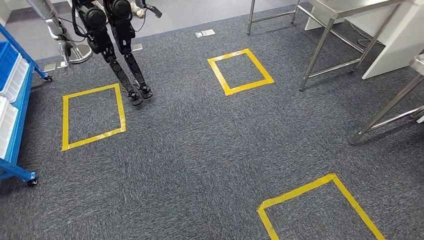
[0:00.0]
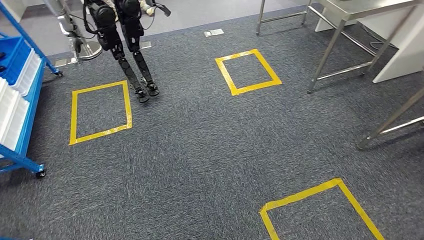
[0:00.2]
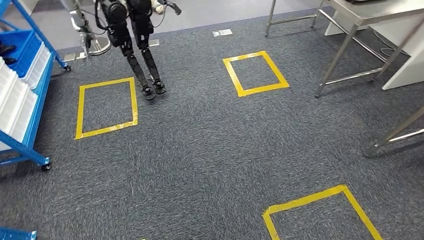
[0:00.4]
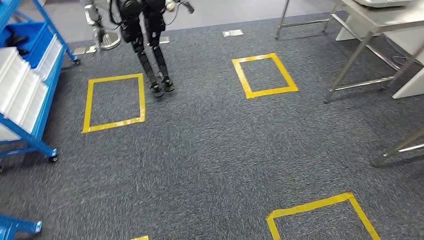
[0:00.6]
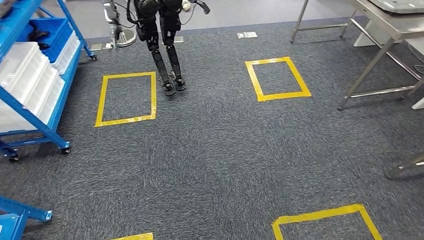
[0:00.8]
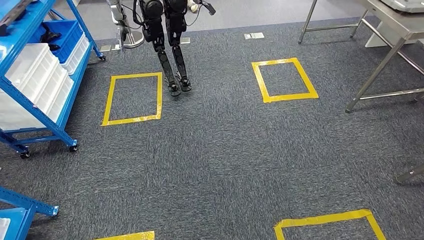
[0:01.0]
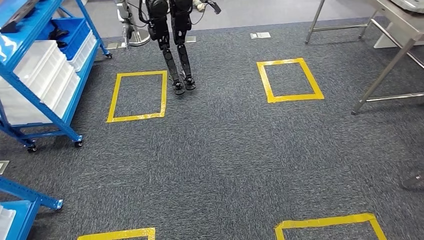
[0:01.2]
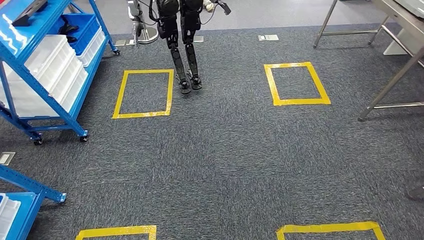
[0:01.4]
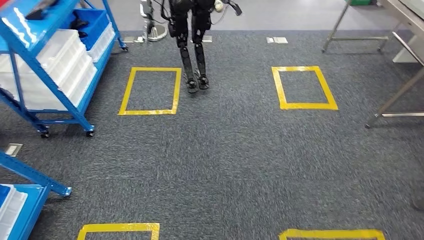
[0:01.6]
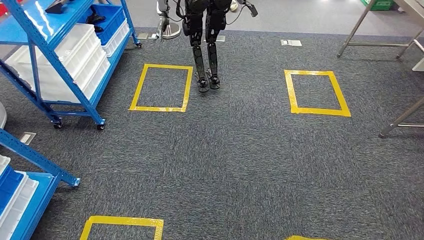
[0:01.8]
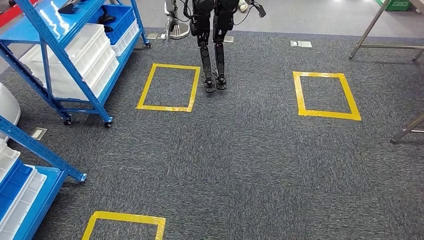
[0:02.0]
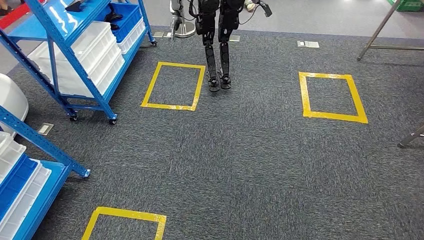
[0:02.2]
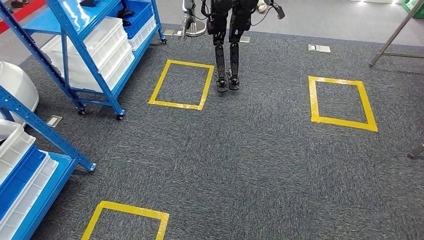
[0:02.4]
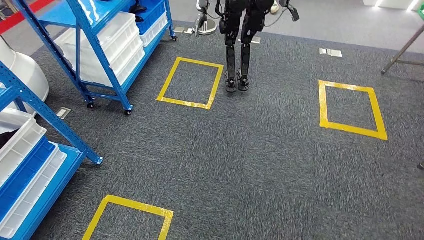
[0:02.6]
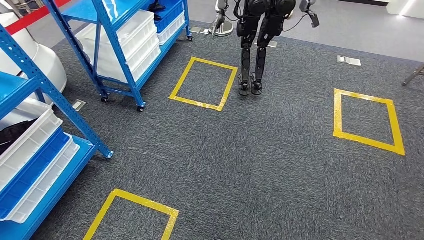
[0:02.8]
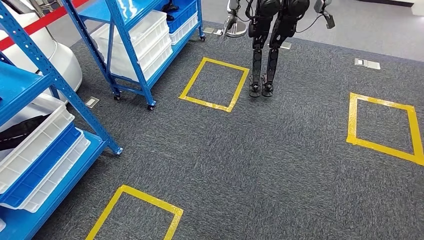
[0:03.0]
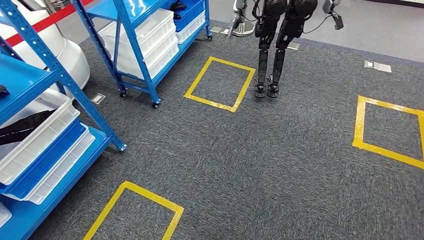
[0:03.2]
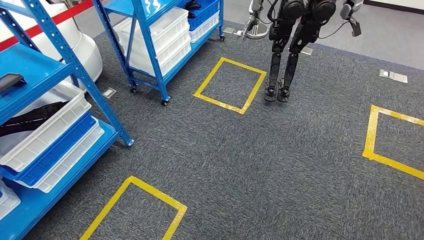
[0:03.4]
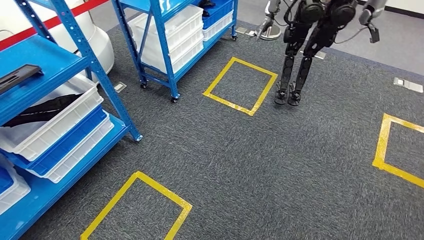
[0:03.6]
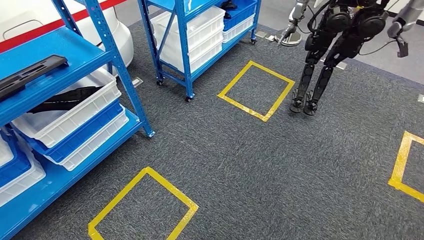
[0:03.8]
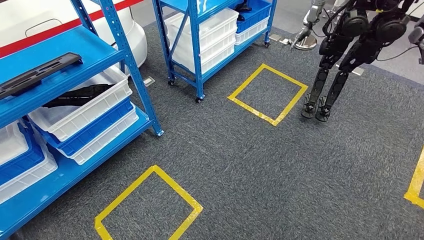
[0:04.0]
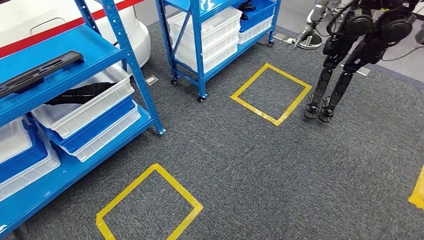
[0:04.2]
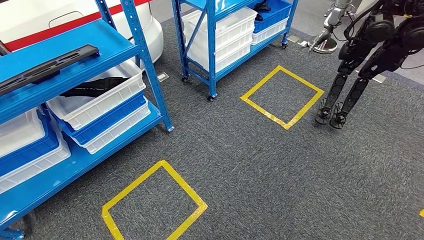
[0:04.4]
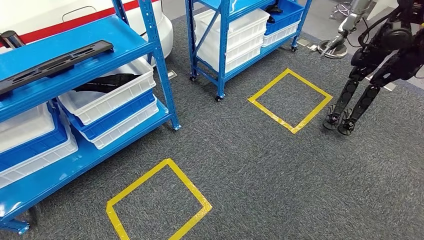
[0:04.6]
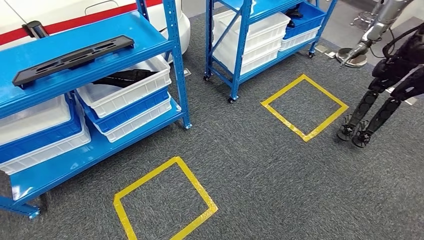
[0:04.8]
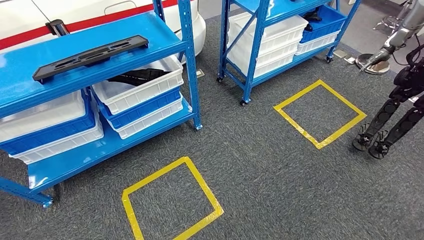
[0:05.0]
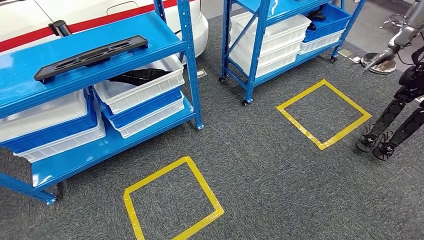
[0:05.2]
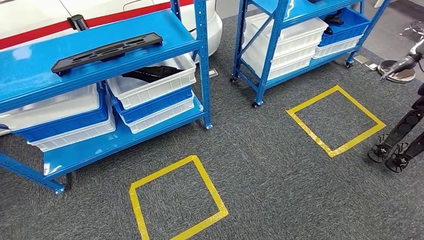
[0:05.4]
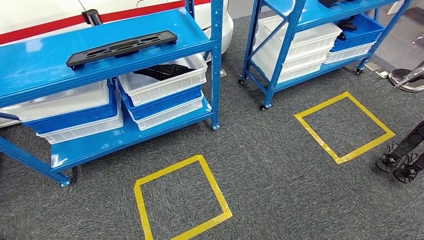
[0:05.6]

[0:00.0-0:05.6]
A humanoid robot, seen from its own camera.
Step, 0:00.0 to 0:05.6: Move to the initial position of the shelf.
